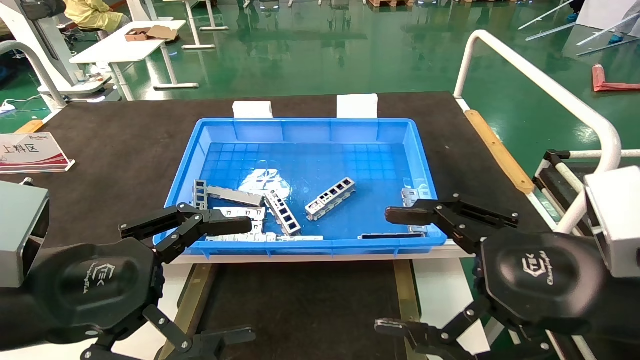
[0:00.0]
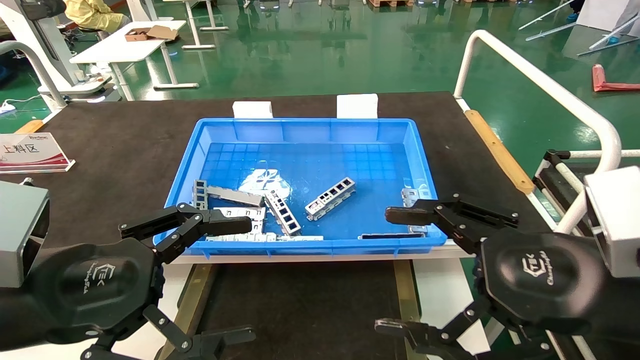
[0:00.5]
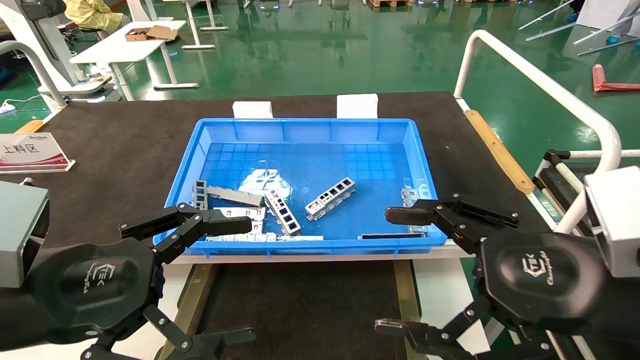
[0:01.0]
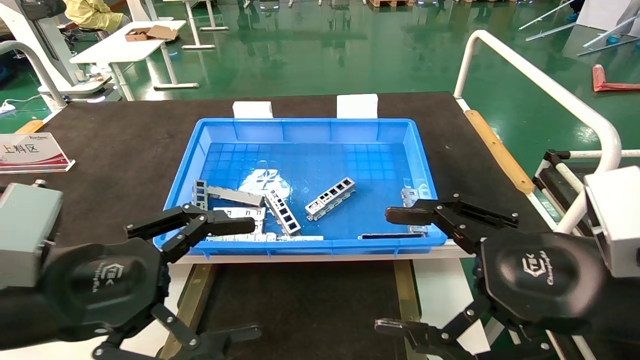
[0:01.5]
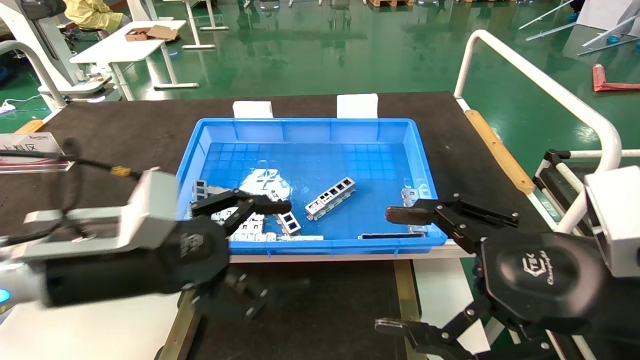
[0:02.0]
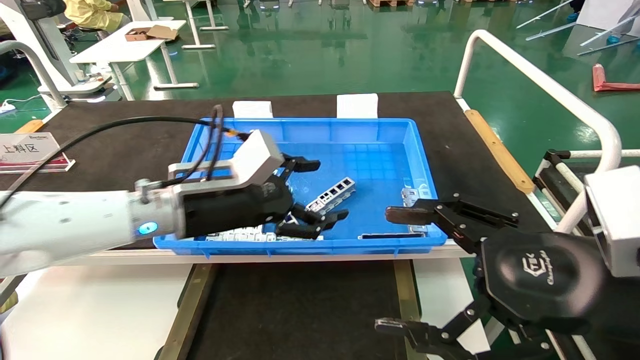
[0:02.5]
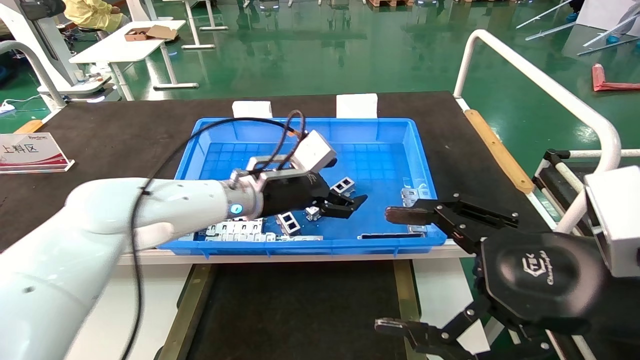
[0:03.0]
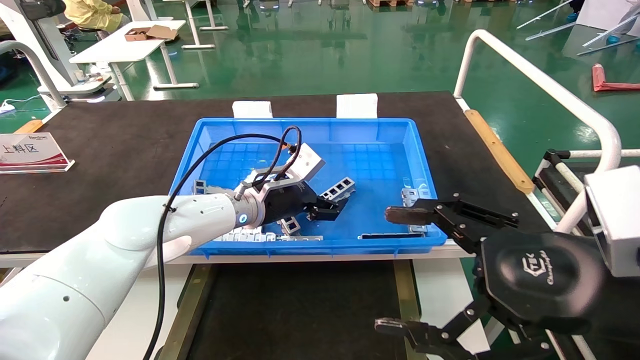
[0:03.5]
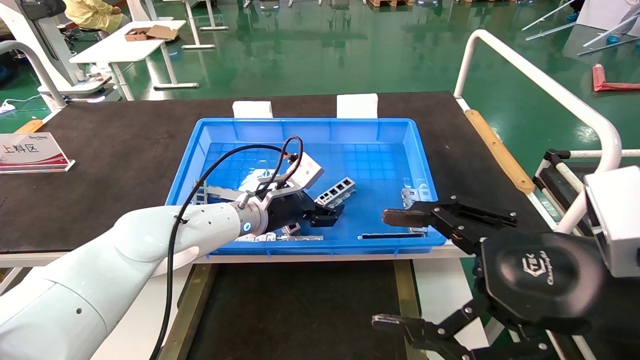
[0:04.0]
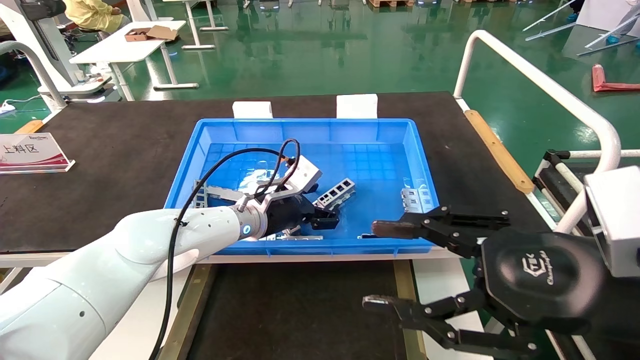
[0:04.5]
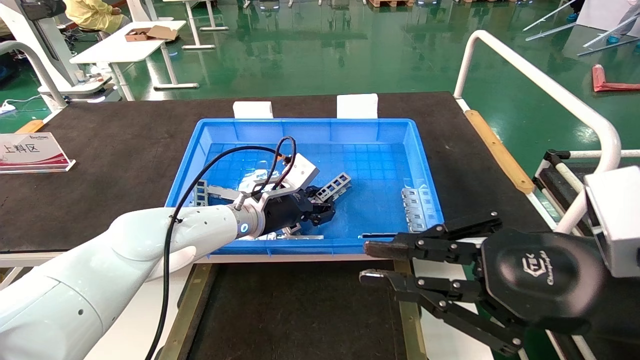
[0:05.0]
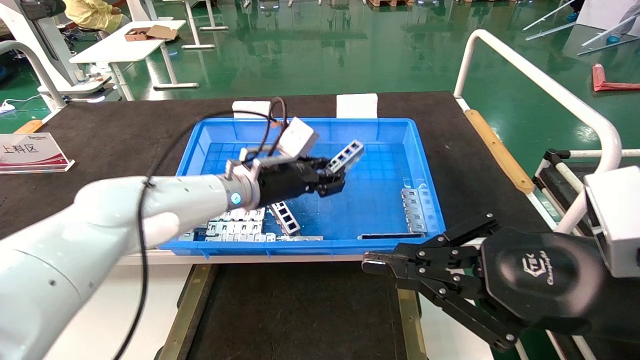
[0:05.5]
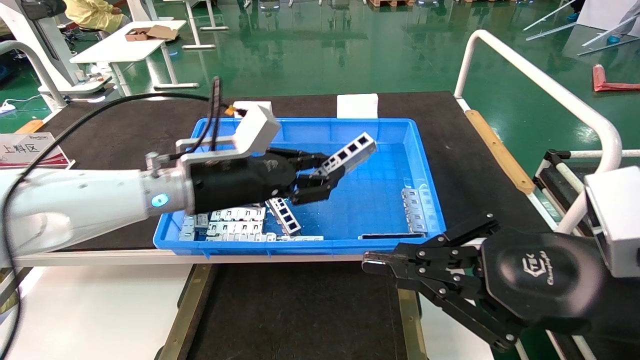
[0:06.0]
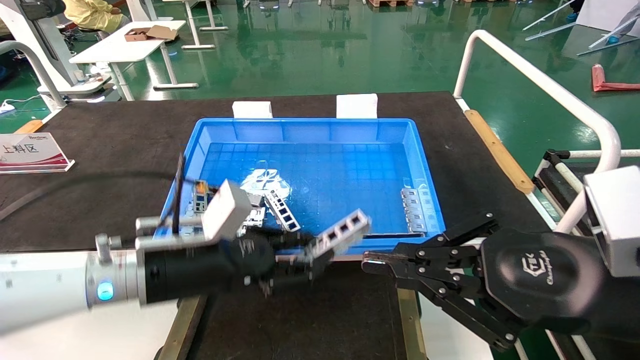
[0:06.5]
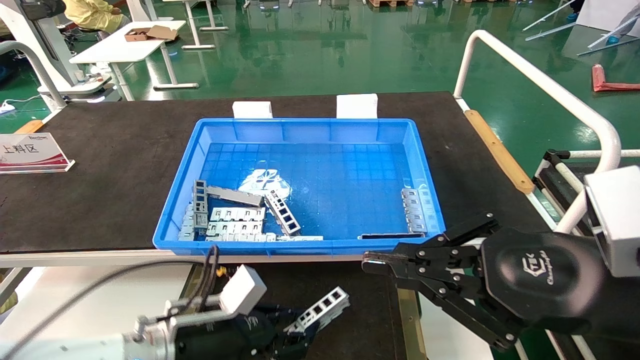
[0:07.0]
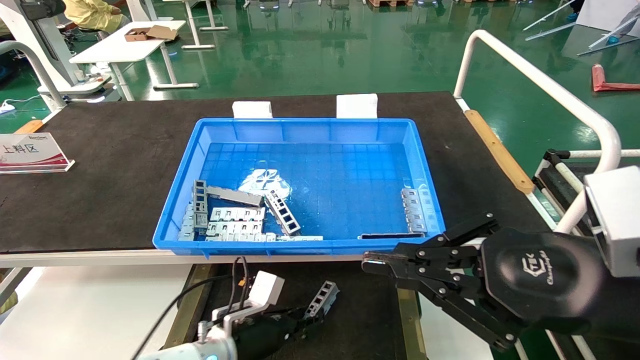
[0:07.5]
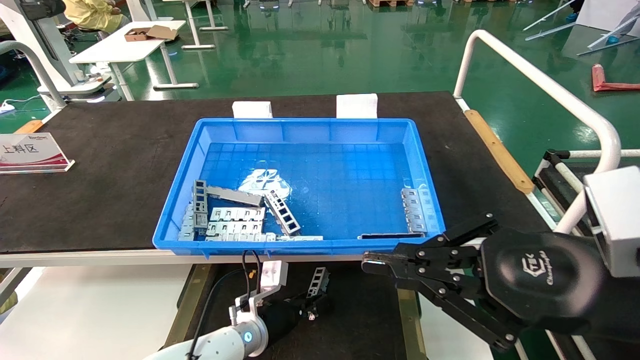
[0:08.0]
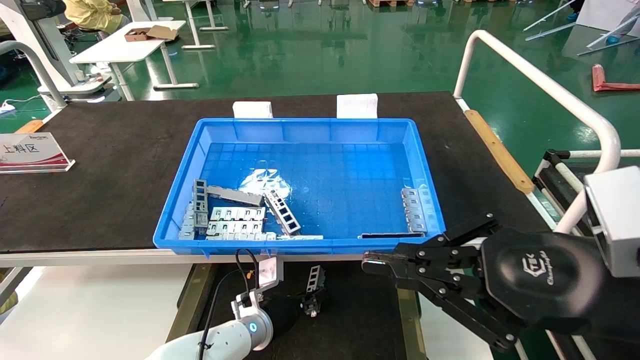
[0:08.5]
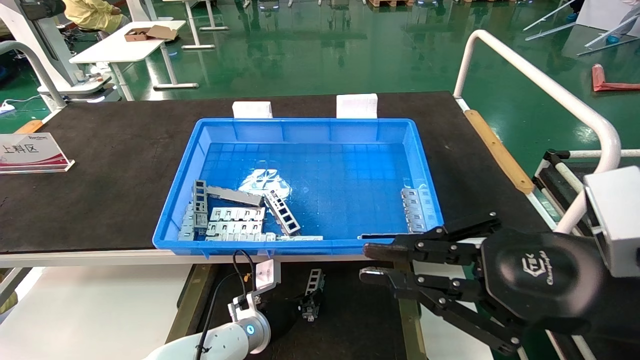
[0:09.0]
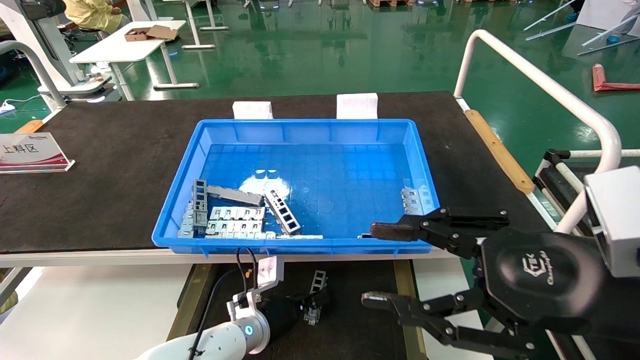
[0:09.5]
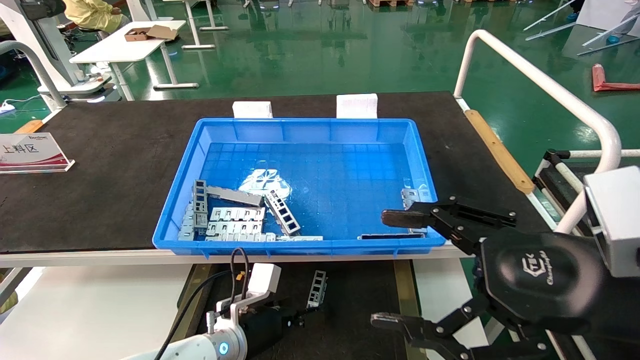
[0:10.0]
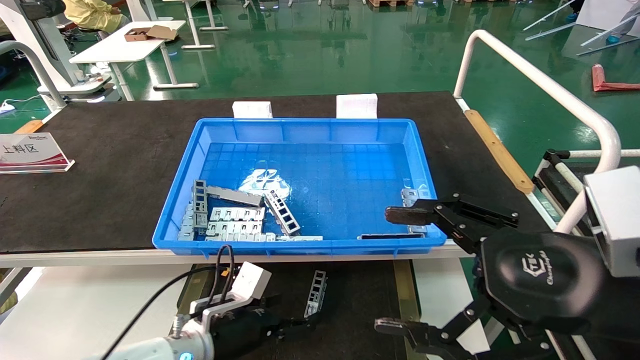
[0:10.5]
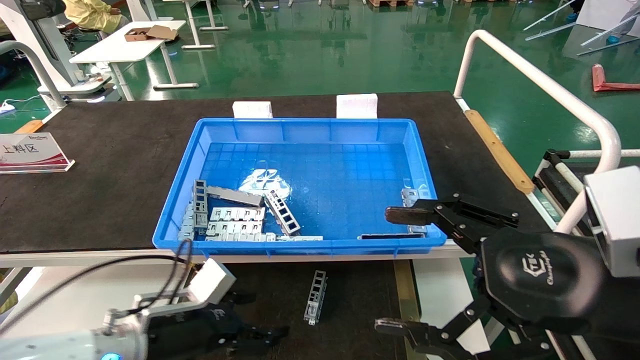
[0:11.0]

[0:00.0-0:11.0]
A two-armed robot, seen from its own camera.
Task of the whole recording: Grasp the part with one hand and place it on the black container.
Step, 0:02.0 to 0:05.5: Pick up the front USB bracket from the feeding area.
Step, 0:06.0 to 0:09.5: Place the front USB bracket into the box.
0:00.0 to 0:02.0: The left gripper heads forward, covering approximately 5 cm.
0:02.0 to 0:03.5: The left gripper heads forward and to the right, covering about 25 cm.
0:03.5 to 0:05.5: The left gripper closes. The right gripper closes up.
0:05.5 to 0:07.5: The left gripper heads downward, covering approximately 25 cm.
0:07.5 to 0:09.0: The left gripper ends up roughly 5 cm from where it was.
0:09.0 to 0:11.0: The left gripper is displaced to the left, backward and upward by some 20 cm, and opens up; the right gripper opens its fingers.
